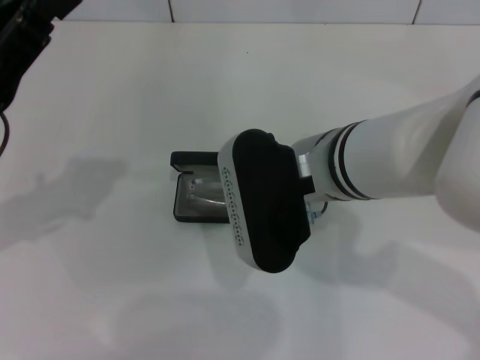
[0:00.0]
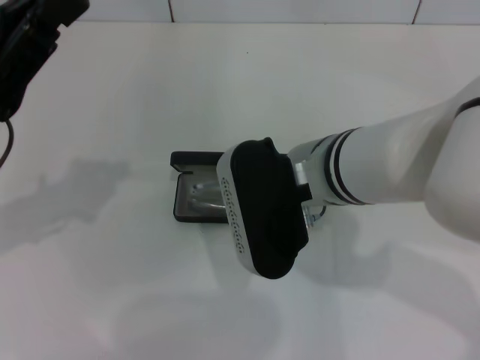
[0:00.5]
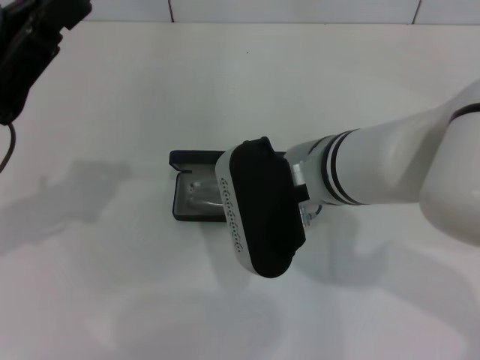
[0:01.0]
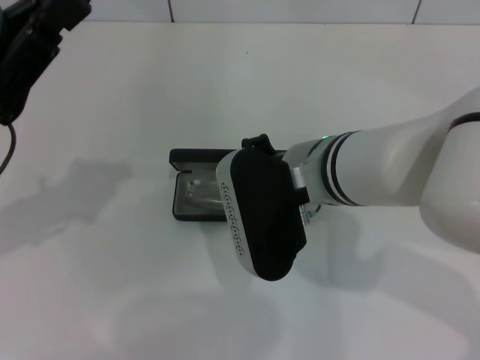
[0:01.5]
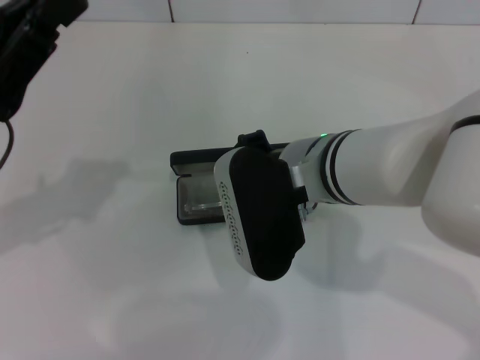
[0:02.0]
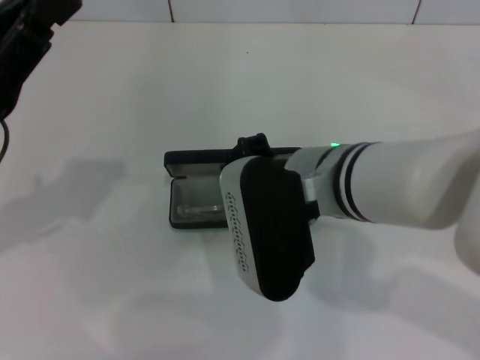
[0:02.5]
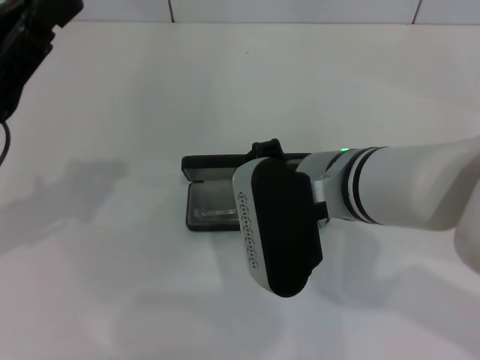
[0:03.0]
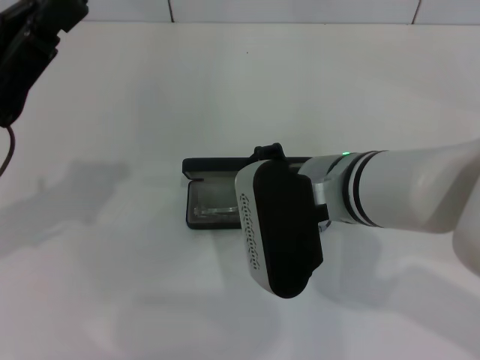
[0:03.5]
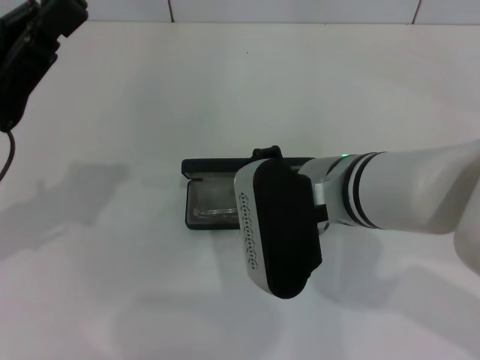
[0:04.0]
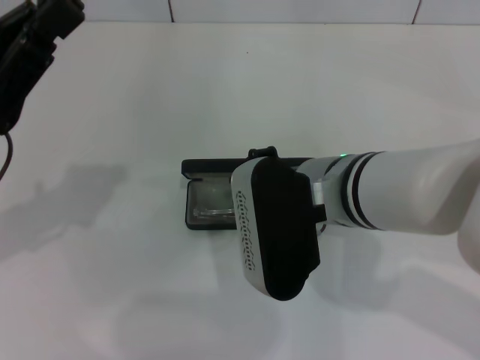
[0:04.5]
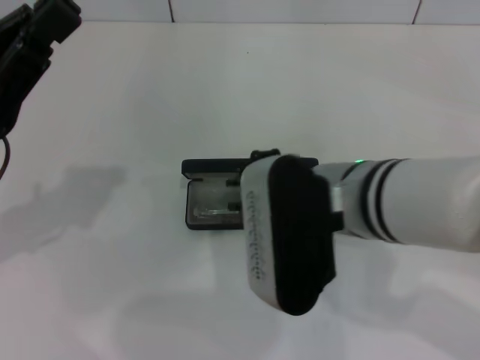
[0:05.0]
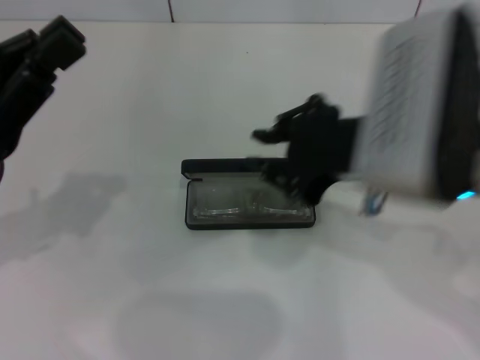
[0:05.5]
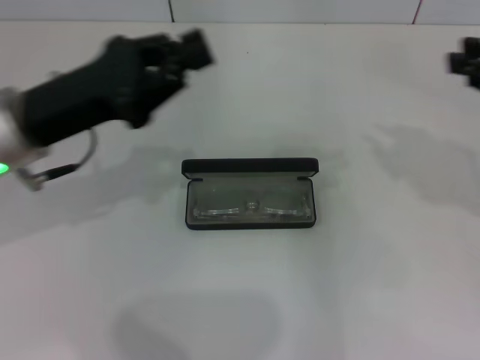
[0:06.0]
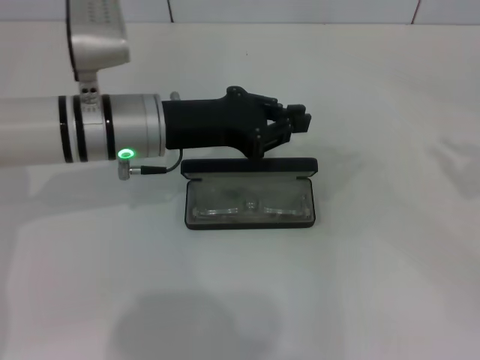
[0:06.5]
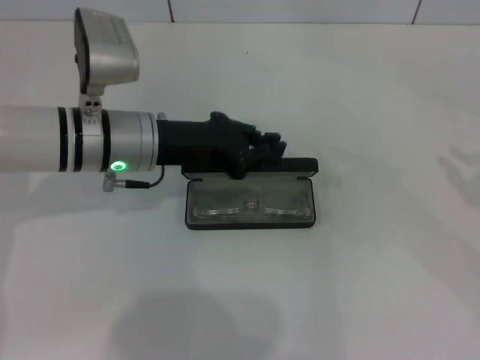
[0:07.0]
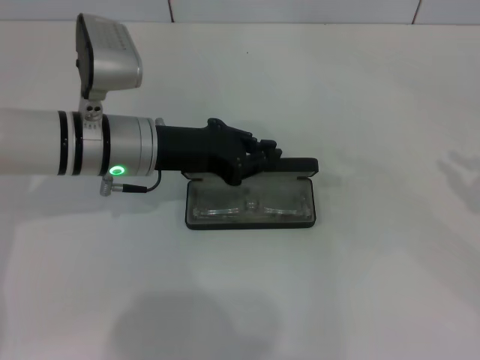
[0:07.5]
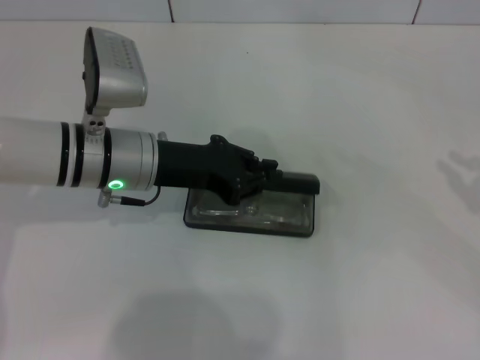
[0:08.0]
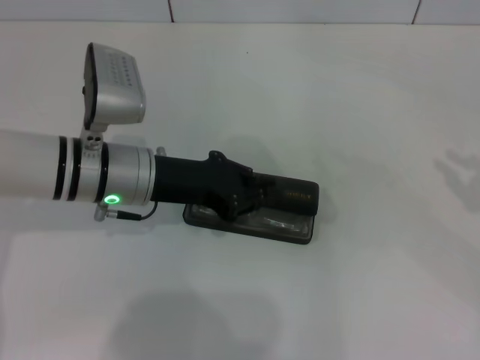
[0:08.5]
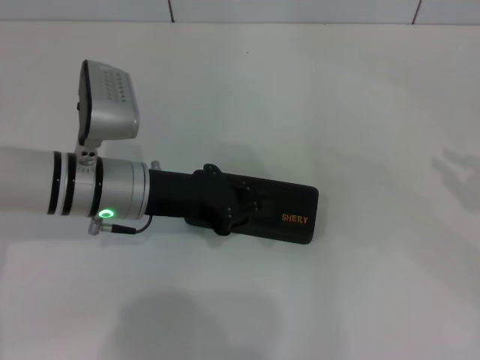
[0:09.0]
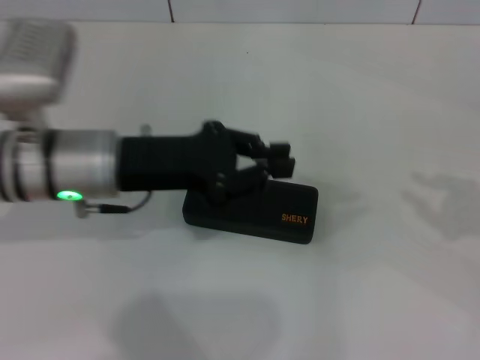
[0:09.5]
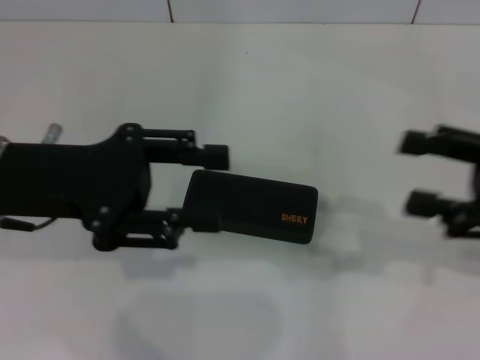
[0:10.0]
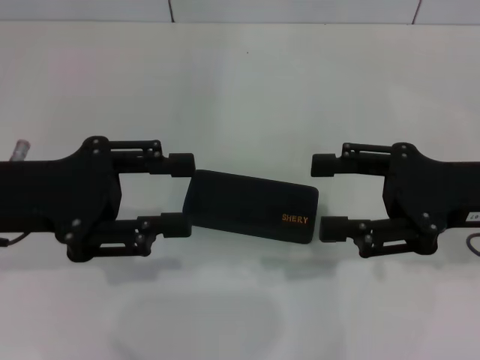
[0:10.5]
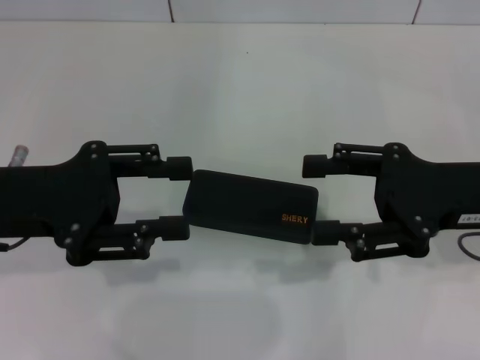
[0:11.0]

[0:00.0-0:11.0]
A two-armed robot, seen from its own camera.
Step, 0:00.0 to 0:04.5: Put the glasses into the case with your right hand.
Step, 0:05.0 to 0:09.0: Close the glasses case with your left hand.
0:00.0 to 0:03.5: The grippers move only a little.
0:03.5 to 0:05.5: The right gripper goes some 10 cm upward and to the right.
0:05.5 to 0:07.5: The right gripper goes approximately 25 cm to the right. Meanwhile the left gripper moves to the right, forward and downward, roughly 15 cm.
0:07.5 to 0:09.0: The grippers stay close to where they were, moving slightly.
0:09.0 to 0:11.0: The left gripper goes about 15 cm to the left, upward and backward, and opens up. Meanwhile the right gripper heads to the left, covering some 15 cm, and opens its fingers.
